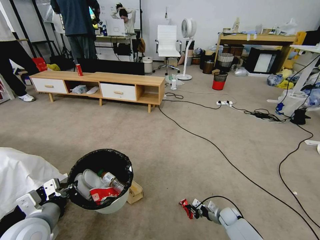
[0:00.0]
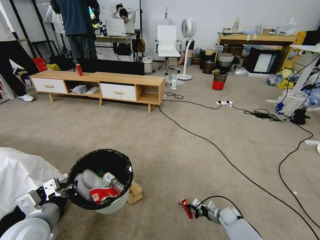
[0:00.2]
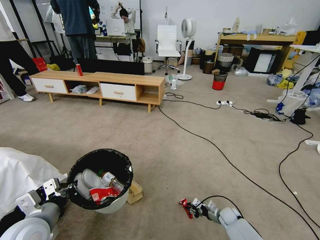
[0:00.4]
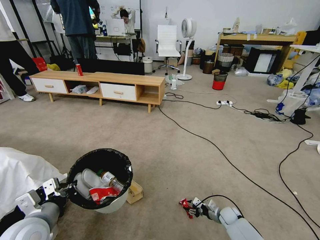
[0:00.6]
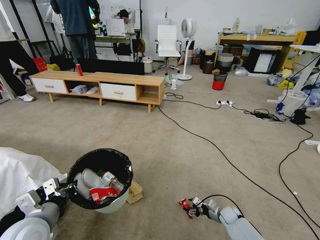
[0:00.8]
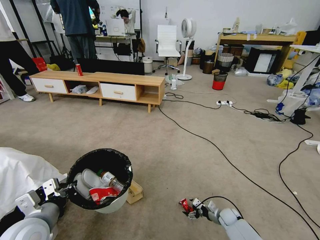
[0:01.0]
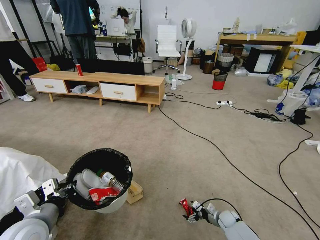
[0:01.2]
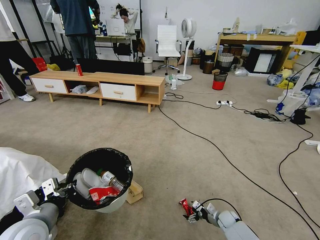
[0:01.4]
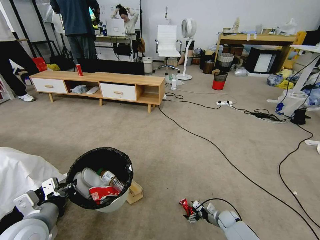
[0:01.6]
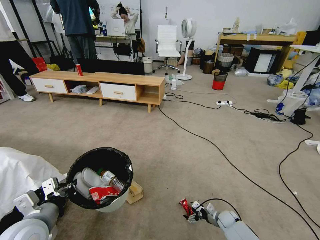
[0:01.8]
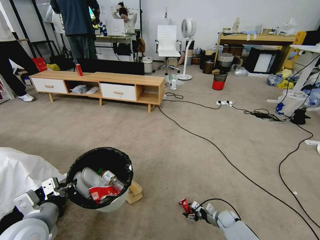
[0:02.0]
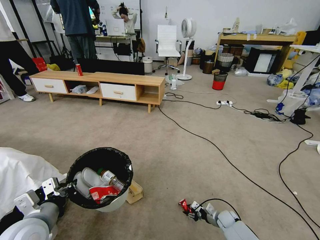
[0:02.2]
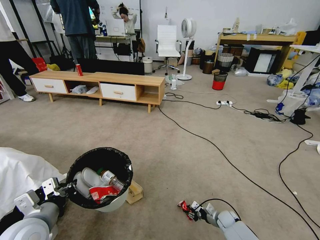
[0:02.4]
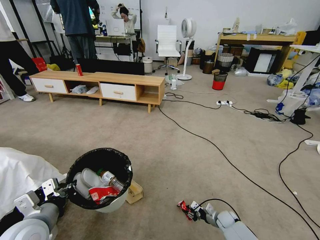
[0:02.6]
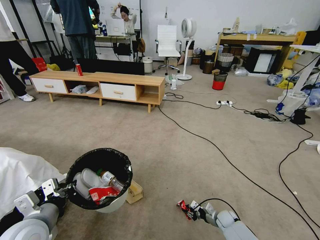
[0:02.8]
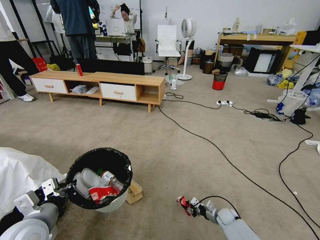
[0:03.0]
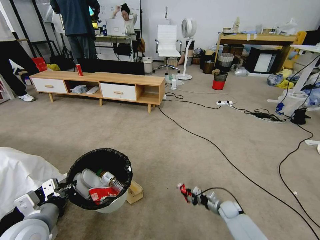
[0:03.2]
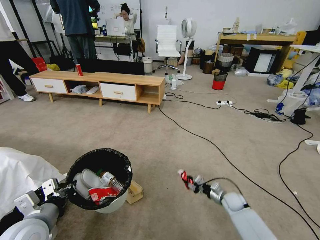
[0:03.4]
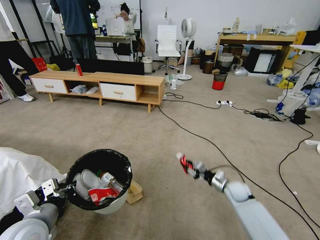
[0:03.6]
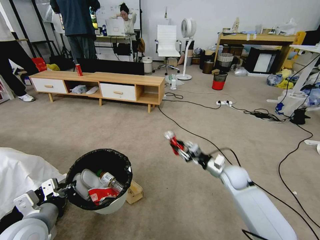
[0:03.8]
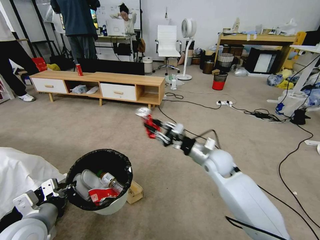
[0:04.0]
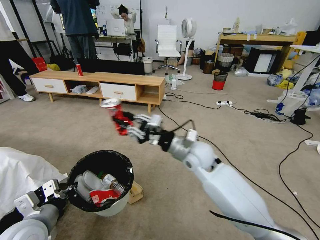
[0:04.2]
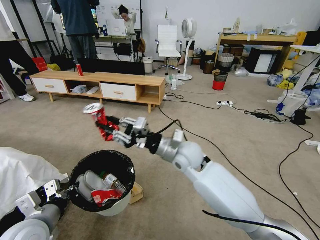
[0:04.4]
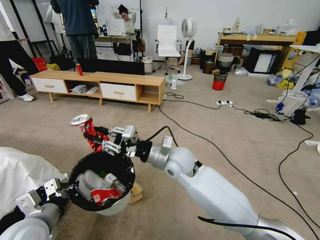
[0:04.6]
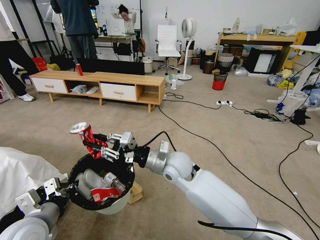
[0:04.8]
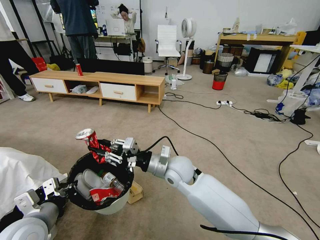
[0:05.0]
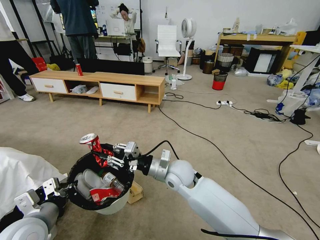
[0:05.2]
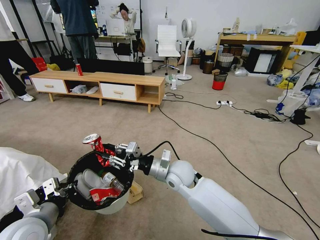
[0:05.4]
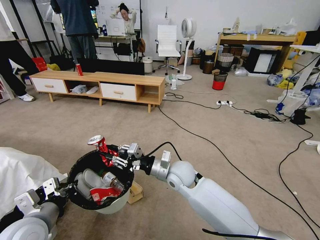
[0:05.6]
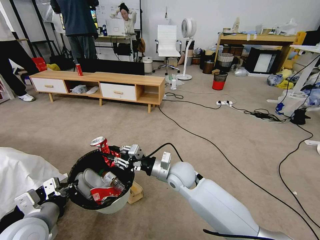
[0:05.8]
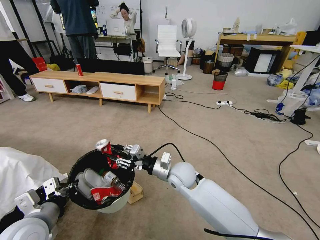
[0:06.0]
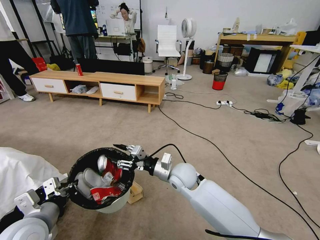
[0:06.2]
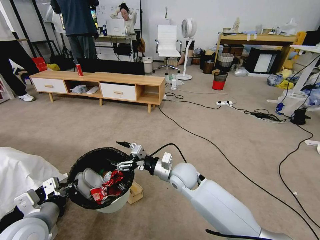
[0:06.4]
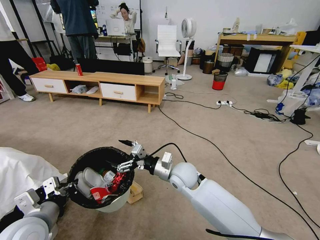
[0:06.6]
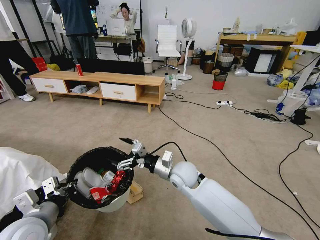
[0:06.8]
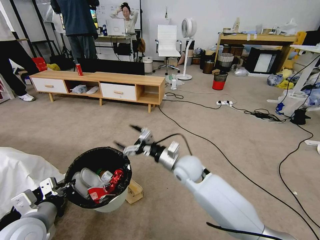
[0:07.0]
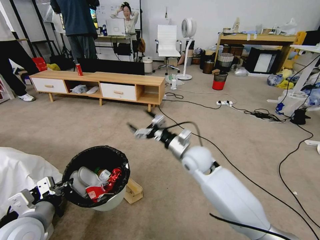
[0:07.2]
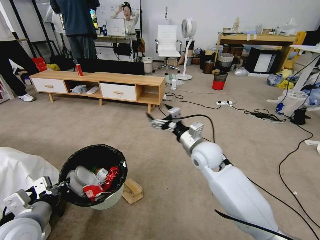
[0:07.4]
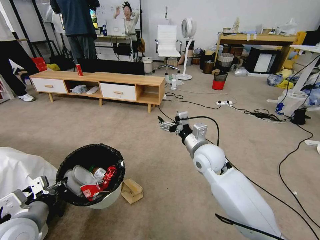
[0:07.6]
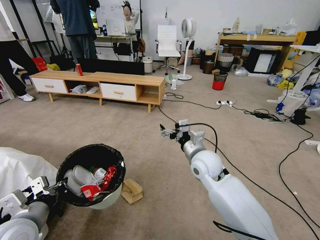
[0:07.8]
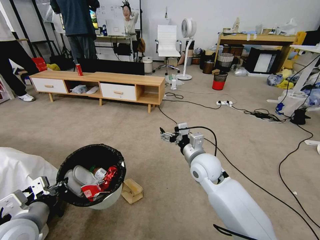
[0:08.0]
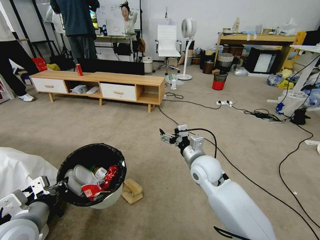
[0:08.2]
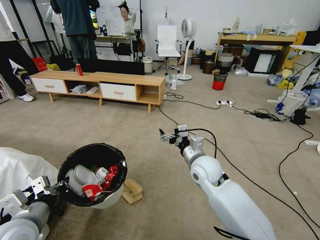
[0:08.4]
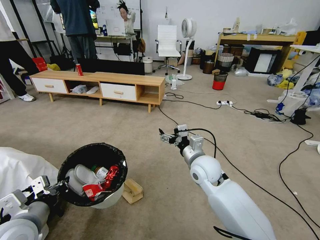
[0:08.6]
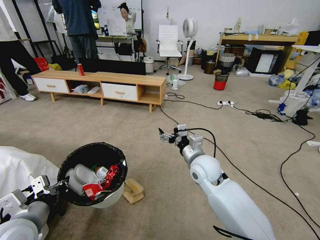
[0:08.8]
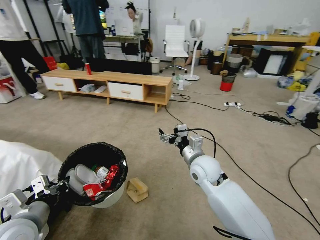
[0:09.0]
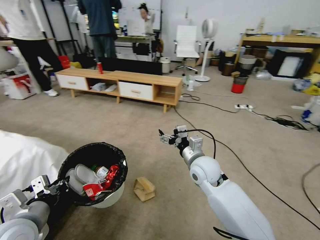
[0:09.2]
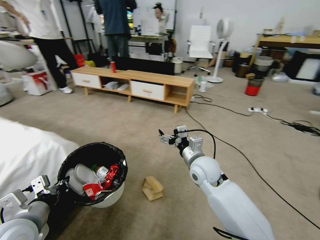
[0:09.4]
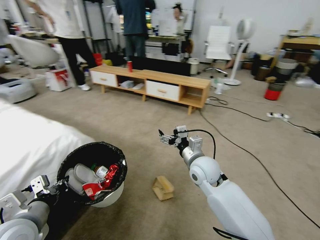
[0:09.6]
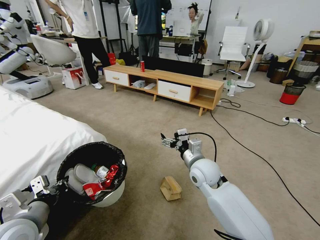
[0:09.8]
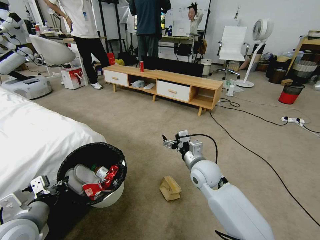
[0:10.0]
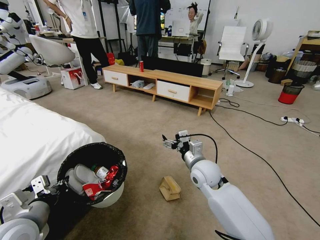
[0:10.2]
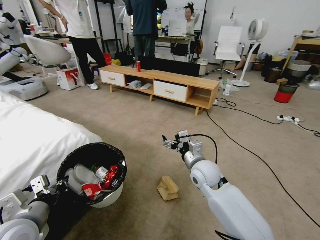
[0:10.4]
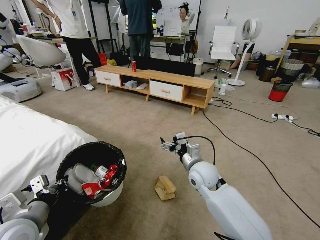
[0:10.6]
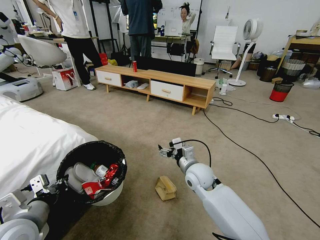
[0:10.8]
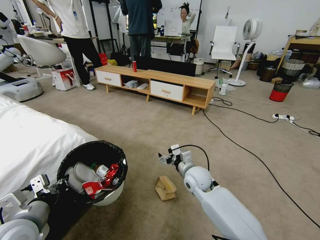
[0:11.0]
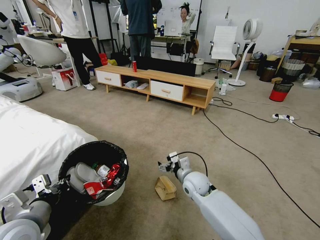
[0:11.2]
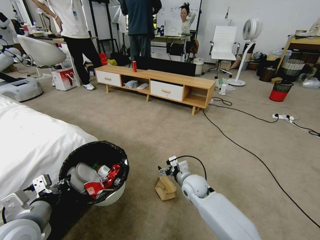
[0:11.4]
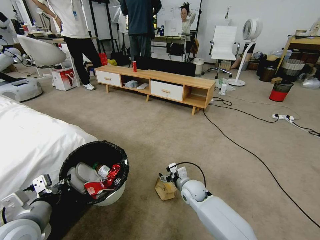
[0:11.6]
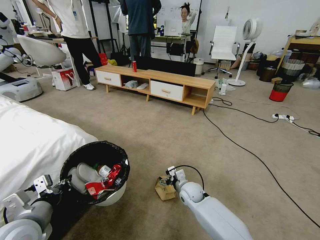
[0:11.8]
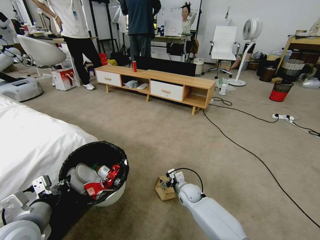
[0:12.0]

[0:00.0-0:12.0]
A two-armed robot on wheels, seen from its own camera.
Task of the whole recording: Pick up the trash bin and place the garbage on the floor into it.
0:00.0 to 0:01.6: The right gripper opens its fingers.
0:01.6 to 0:03.0: The right gripper closes up.
0:03.0 to 0:04.4: The right gripper goes approximately 50 cm upward and to the left.
0:04.4 to 0:06.0: The right gripper is displaced downward by approximately 10 cm.
0:06.0 to 0:07.6: The right gripper heads to the right and upward, covering about 10 cm, and opens up.
0:09.0 to 0:10.4: The left gripper closes its fingers.
0:10.4 to 0:12.0: The right gripper heads downward, covering some 20 cm.

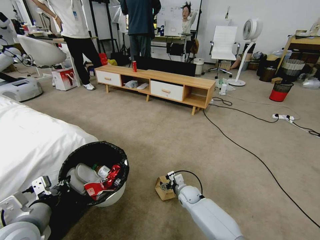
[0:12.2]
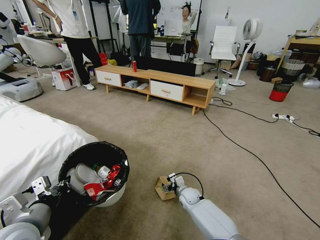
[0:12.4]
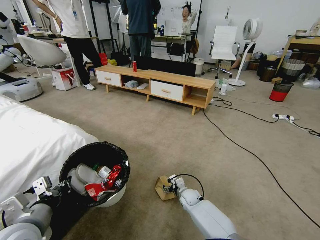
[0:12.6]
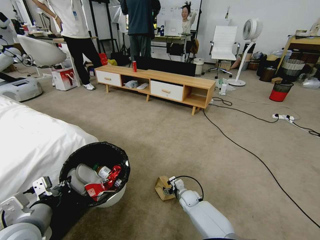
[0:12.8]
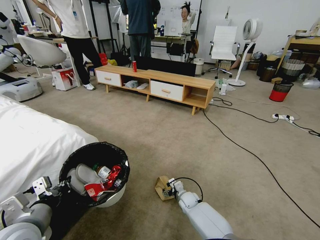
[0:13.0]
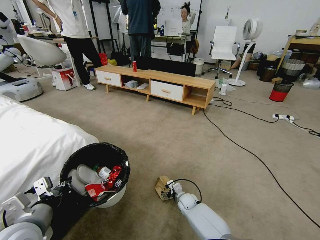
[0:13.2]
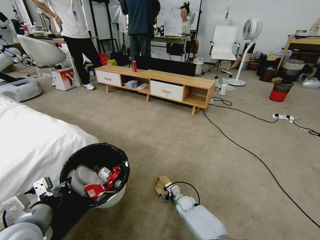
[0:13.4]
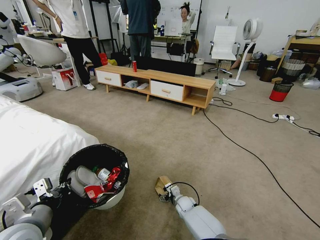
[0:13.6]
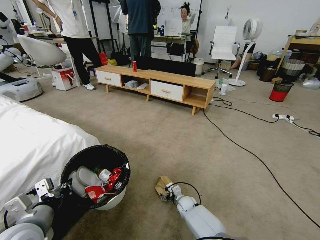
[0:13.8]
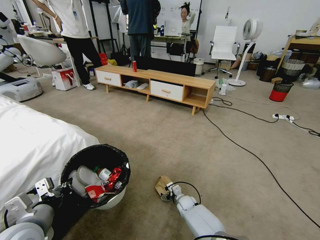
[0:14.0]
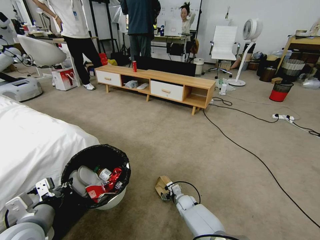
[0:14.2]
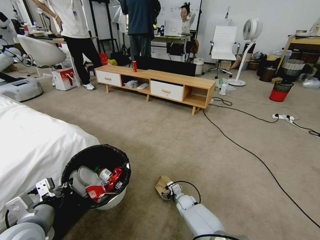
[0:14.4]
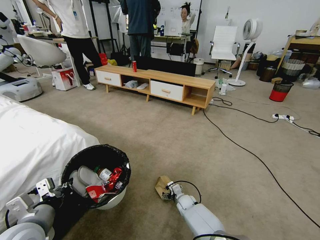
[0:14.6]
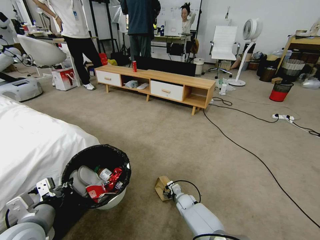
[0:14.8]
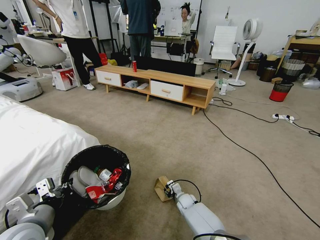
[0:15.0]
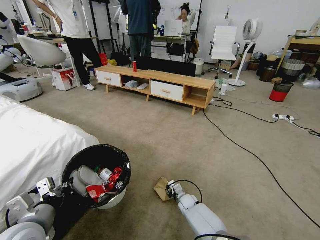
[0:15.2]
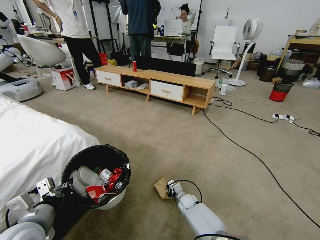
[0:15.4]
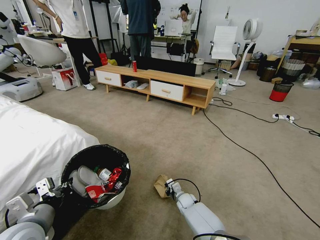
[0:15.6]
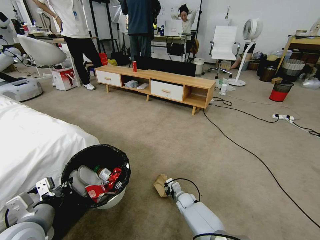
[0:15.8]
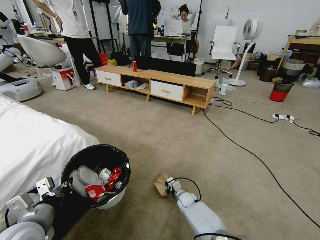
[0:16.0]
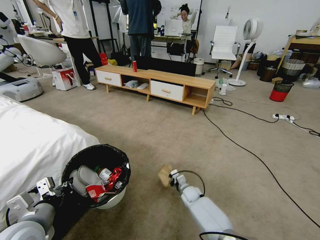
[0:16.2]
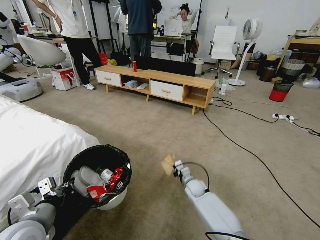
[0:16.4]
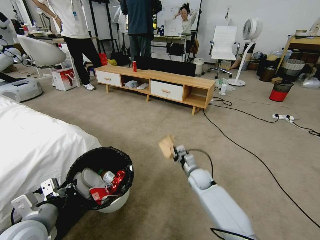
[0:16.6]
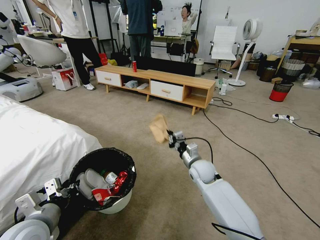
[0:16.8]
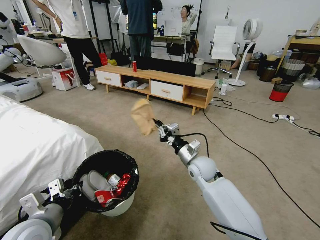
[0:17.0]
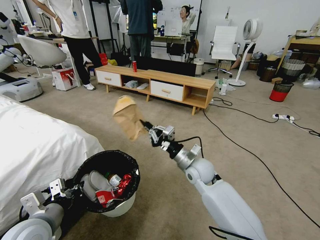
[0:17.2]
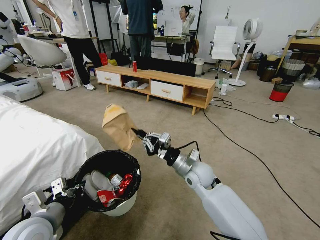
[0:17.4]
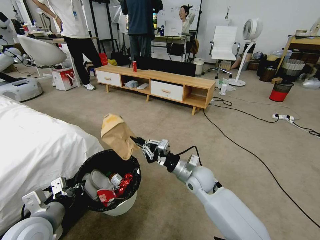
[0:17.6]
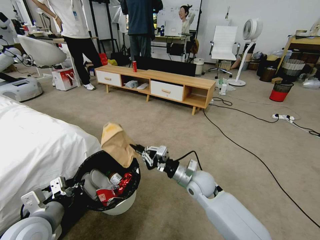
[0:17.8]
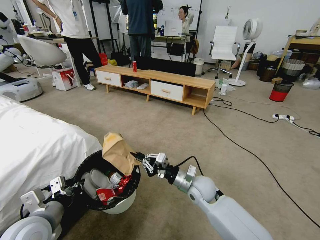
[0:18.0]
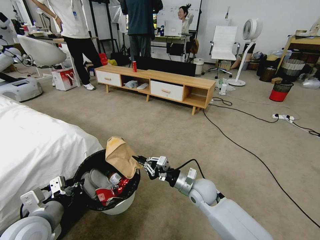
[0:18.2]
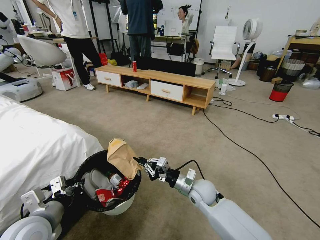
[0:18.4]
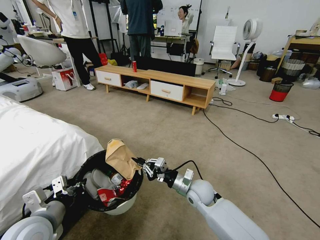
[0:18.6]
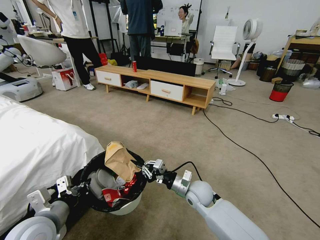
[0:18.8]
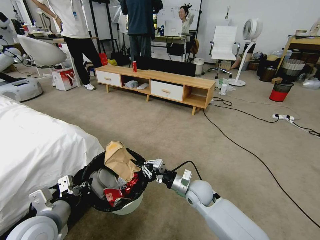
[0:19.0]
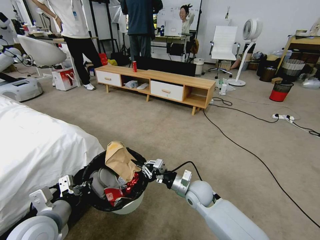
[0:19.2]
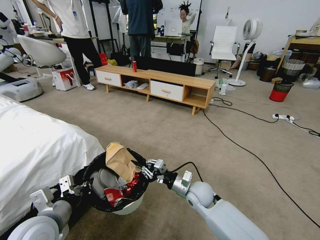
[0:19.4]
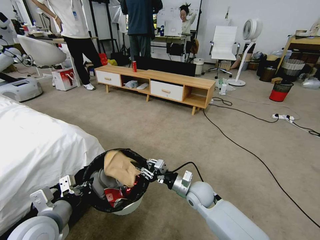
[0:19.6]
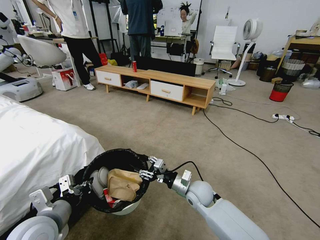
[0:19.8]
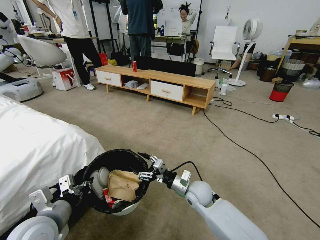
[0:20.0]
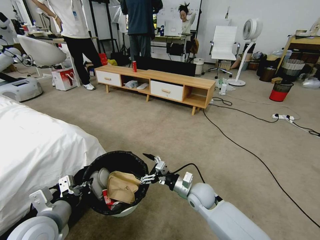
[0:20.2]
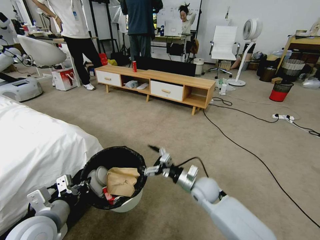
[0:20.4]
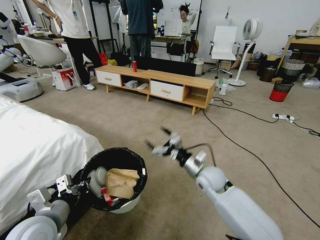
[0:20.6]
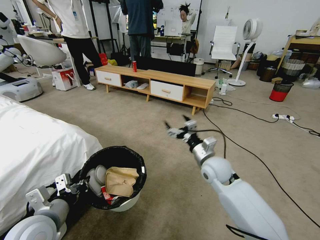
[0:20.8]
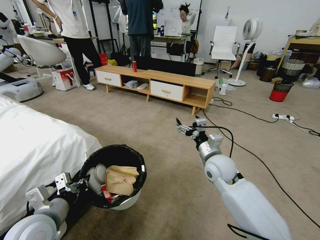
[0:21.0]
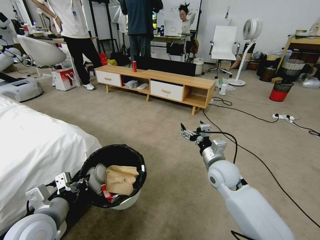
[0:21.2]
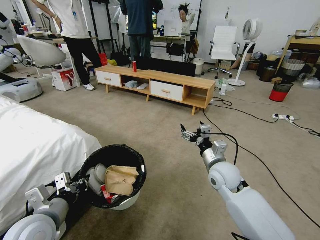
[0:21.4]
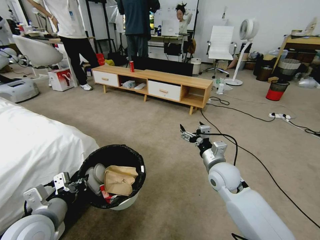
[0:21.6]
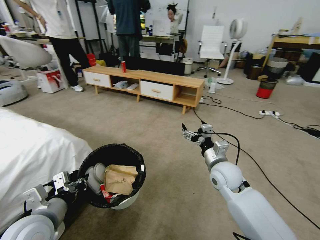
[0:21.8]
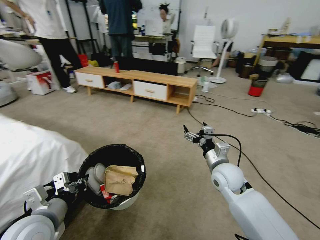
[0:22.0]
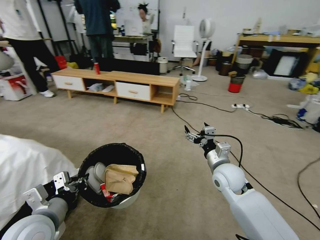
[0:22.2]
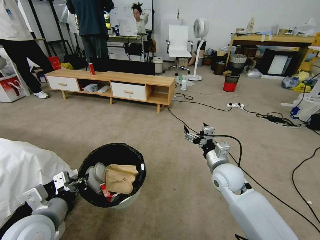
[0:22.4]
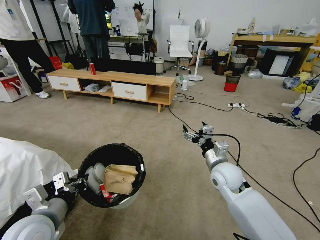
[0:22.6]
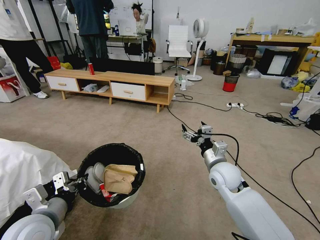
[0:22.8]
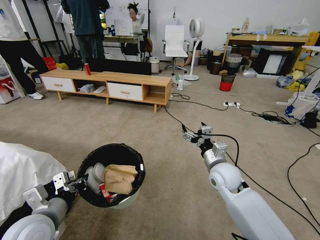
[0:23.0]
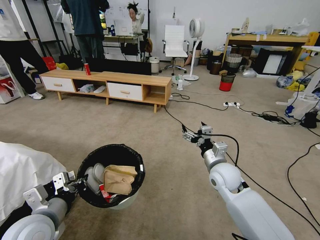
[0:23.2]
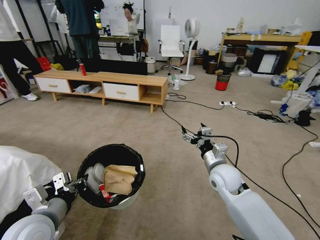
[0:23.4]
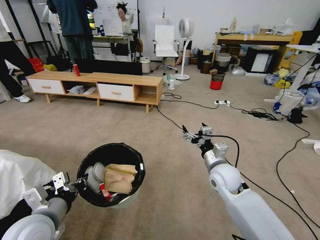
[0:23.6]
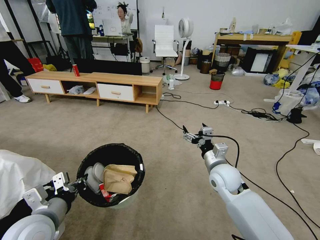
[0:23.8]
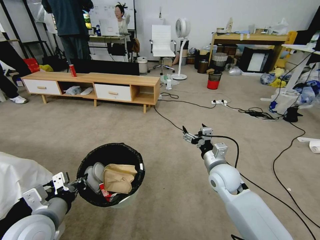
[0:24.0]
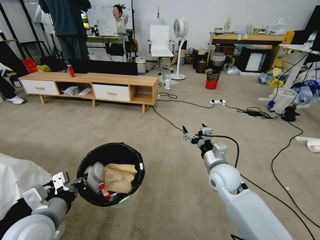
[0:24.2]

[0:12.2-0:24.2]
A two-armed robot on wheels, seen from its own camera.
Task of the whole recording: Pick up the trash bin and place the garbage on the floor into it.
0:12.2 to 0:13.8: The right gripper travels downward by roughly 10 cm.
0:13.8 to 0:15.2: The right gripper closes up.
0:15.2 to 0:16.6: The right gripper travels upward by roughly 15 cm.
0:16.6 to 0:18.2: The right gripper moves backward and upward, roughly 10 cm.
0:18.2 to 0:19.8: The right gripper opens up.
0:19.8 to 0:21.2: The right gripper shifts about 10 cm upward and to the right, and opens.
